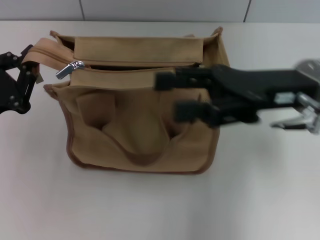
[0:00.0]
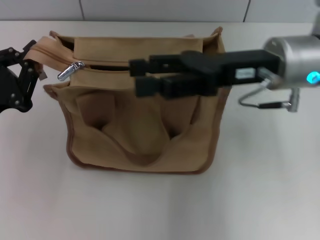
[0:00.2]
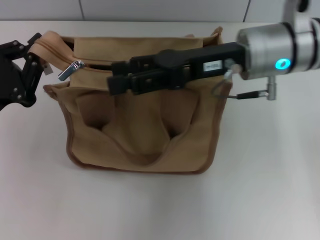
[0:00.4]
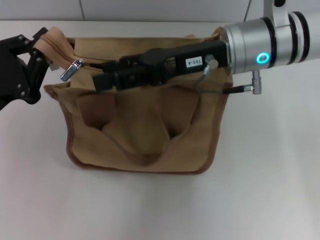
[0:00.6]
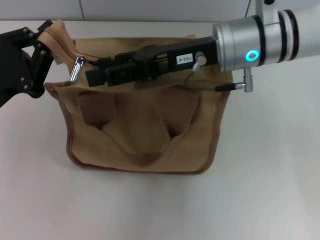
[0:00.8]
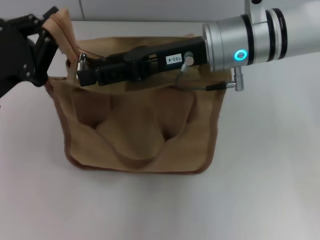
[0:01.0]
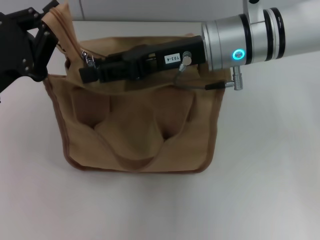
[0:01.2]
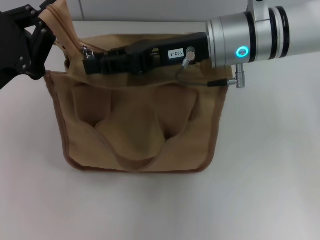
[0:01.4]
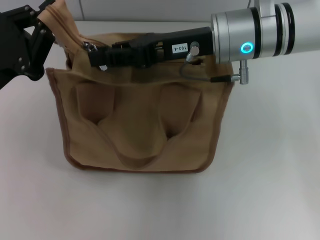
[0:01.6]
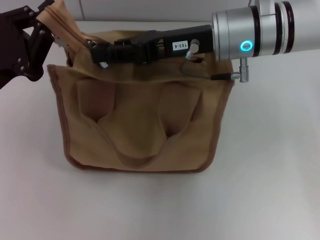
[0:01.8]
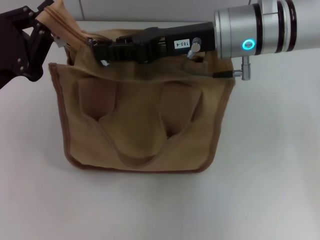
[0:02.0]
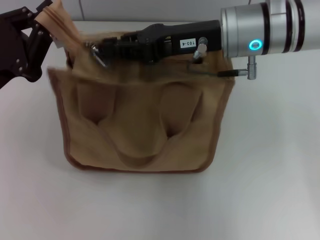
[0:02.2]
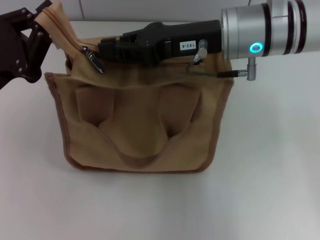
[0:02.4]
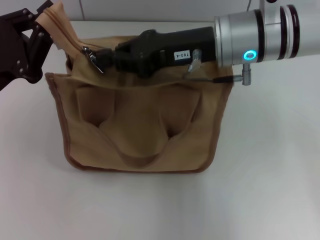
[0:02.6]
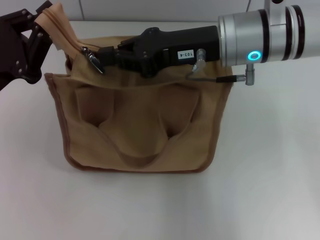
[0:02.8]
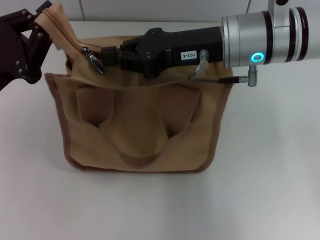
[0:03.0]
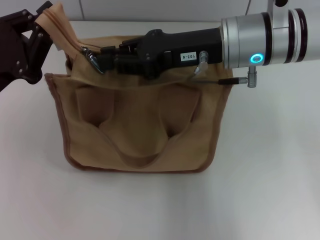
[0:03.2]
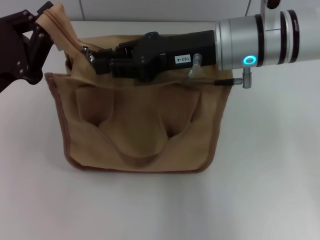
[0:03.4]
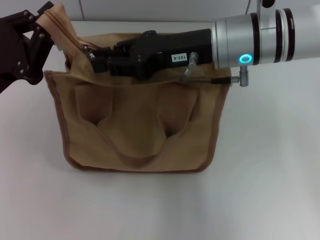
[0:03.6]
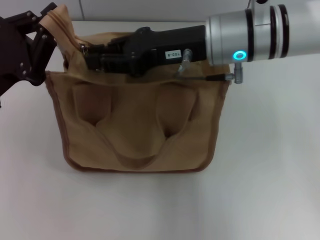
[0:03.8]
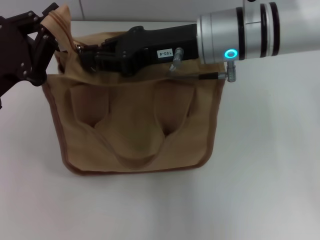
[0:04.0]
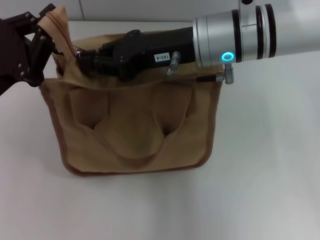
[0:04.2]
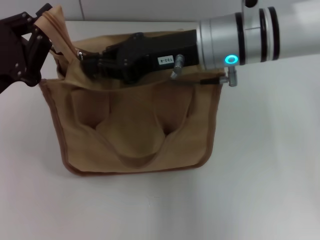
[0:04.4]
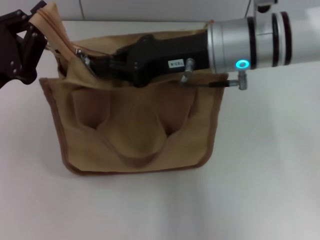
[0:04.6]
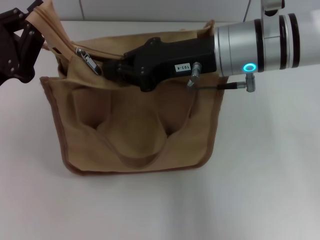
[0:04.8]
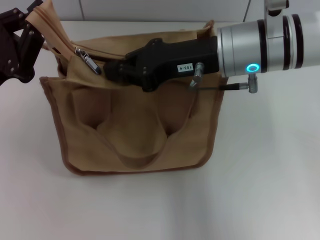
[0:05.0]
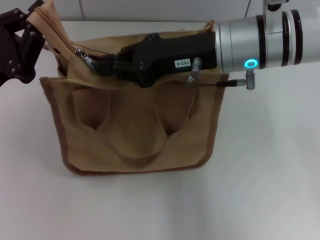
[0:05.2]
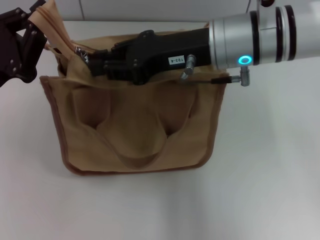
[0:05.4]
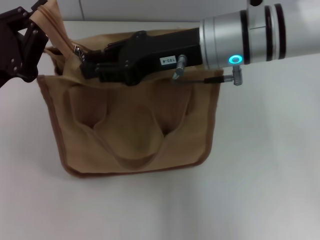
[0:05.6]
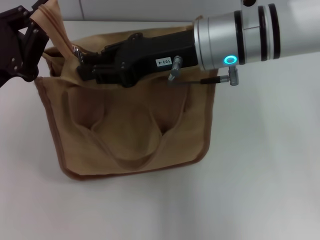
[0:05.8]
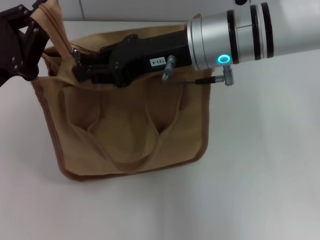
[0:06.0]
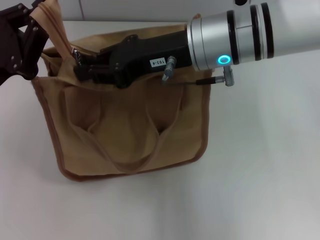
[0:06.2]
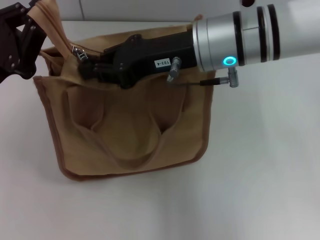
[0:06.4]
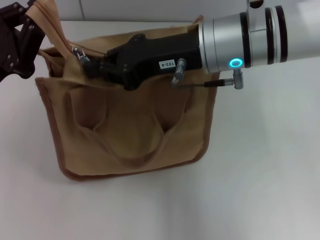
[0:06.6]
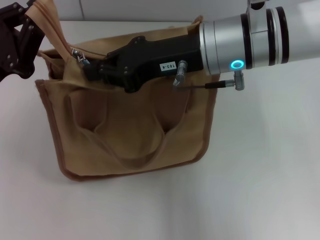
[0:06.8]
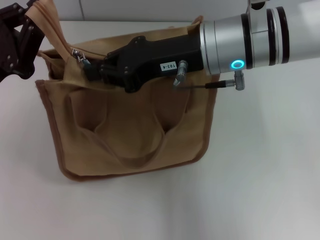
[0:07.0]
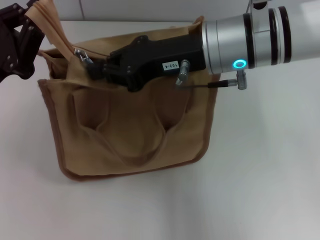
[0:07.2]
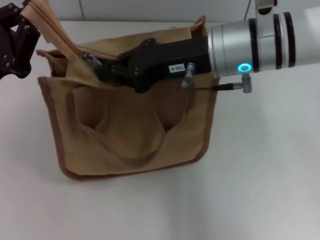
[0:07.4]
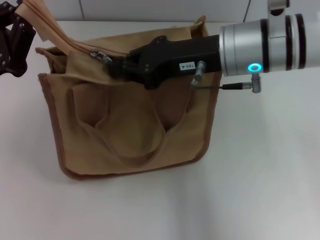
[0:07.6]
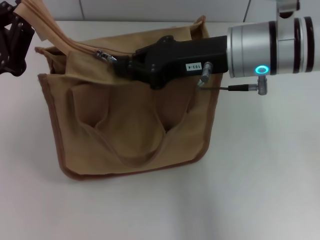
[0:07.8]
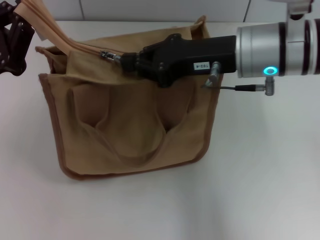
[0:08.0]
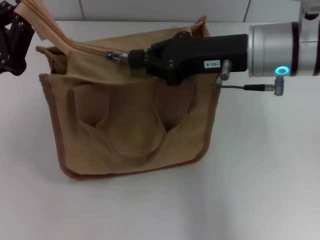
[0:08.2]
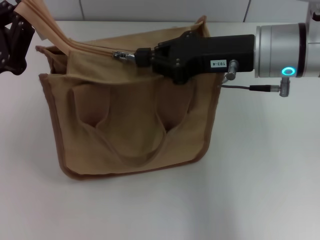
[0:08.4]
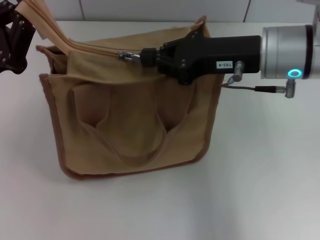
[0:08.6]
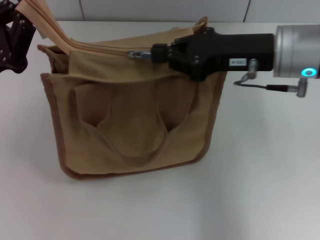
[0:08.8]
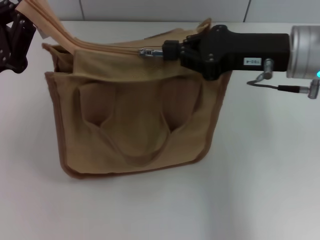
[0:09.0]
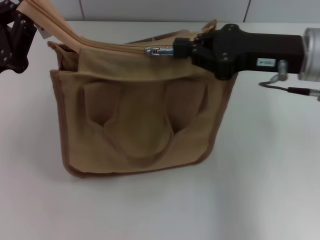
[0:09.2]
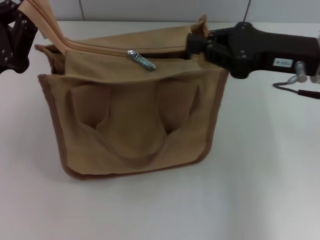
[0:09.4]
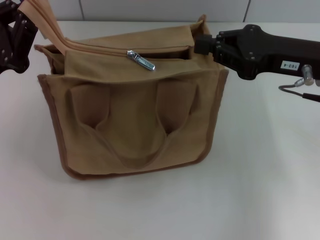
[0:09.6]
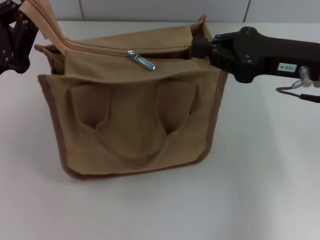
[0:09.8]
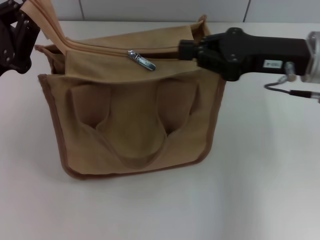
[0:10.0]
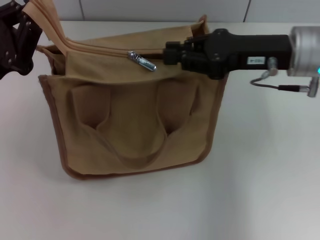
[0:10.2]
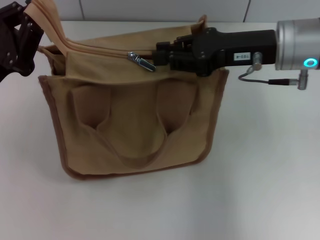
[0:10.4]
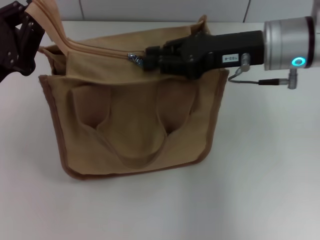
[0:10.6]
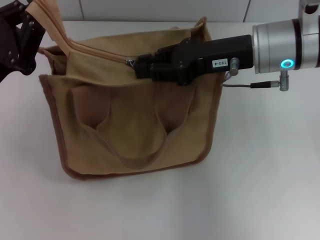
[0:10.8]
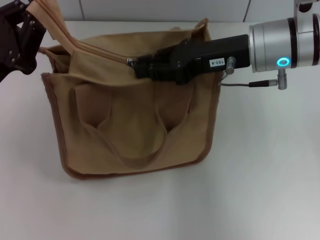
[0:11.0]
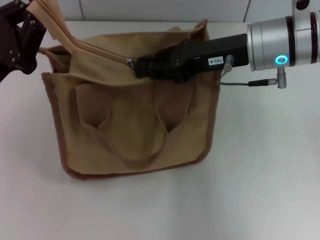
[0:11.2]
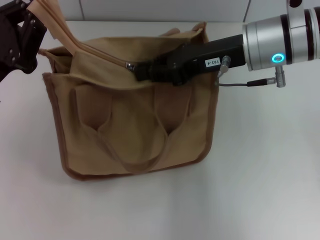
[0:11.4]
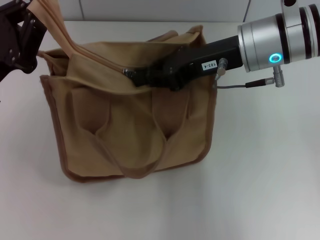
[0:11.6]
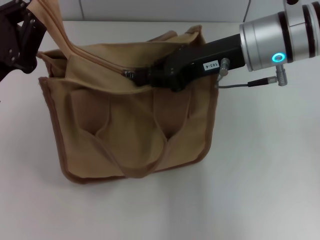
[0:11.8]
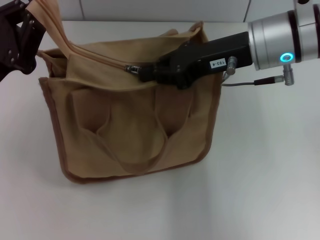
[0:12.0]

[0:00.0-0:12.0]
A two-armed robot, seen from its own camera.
0:00.0 to 0:01.6: The right gripper travels to the left and forward by about 10 cm, and closes its fingers; the left gripper shifts by roughly 5 cm.
0:01.6 to 0:03.0: The right gripper closes its fingers.
0:03.0 to 0:06.0: The grippers stay close to where they were, moving slightly.
0:06.0 to 0:07.6: The right gripper closes up.
0:07.6 to 0:09.0: The right gripper goes some 5 cm to the right.
0:09.0 to 0:12.0: There are only small adjustments of the grippers.

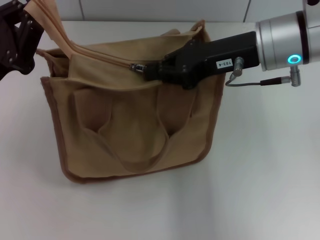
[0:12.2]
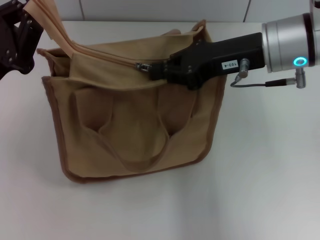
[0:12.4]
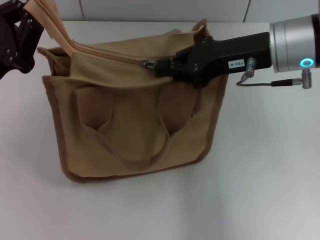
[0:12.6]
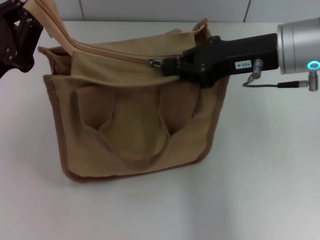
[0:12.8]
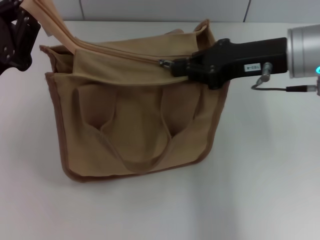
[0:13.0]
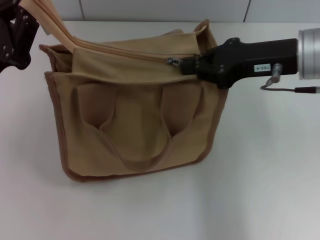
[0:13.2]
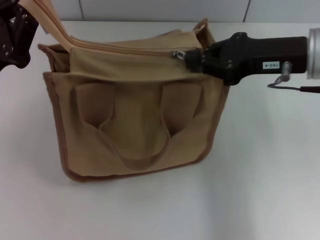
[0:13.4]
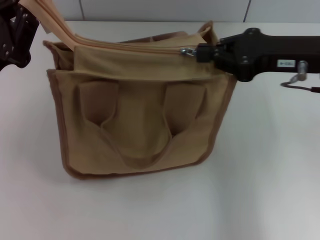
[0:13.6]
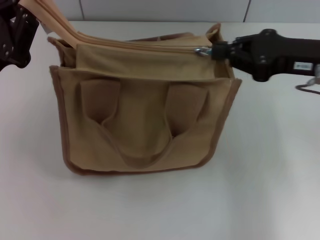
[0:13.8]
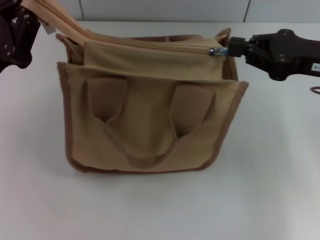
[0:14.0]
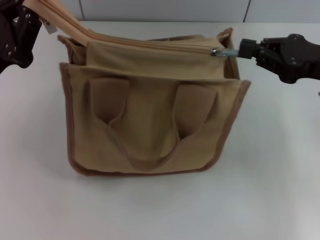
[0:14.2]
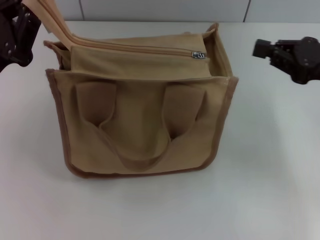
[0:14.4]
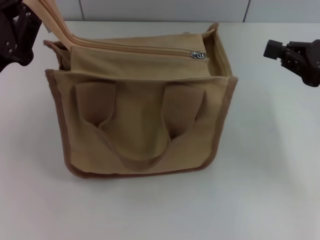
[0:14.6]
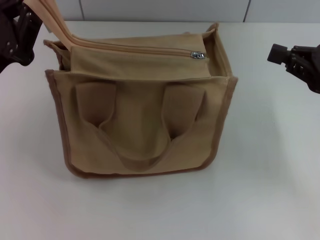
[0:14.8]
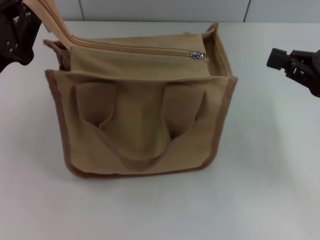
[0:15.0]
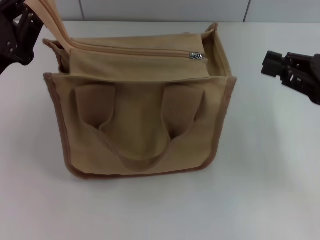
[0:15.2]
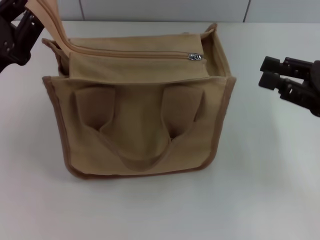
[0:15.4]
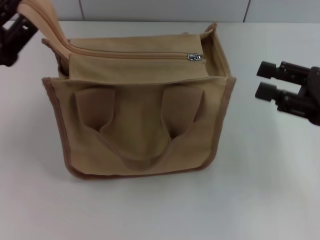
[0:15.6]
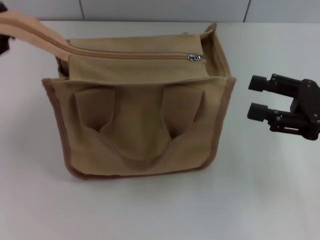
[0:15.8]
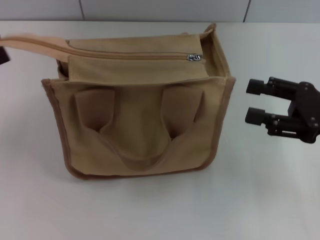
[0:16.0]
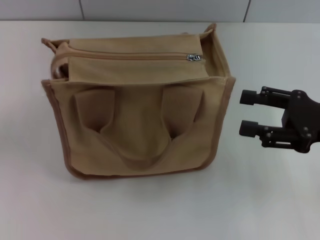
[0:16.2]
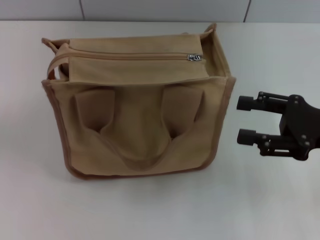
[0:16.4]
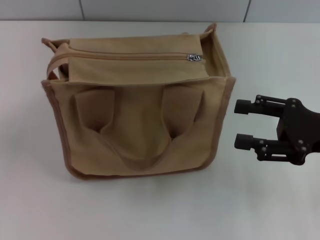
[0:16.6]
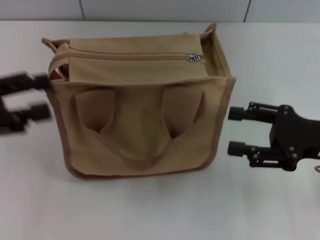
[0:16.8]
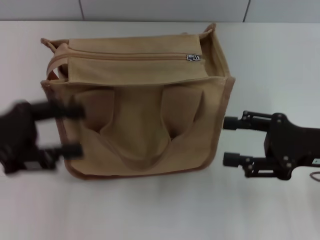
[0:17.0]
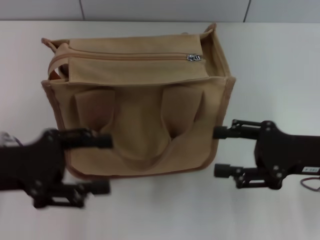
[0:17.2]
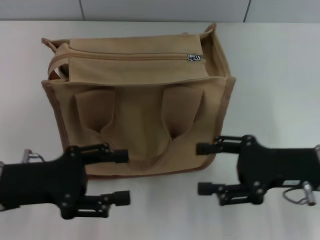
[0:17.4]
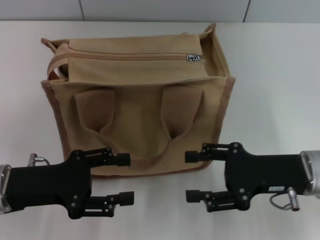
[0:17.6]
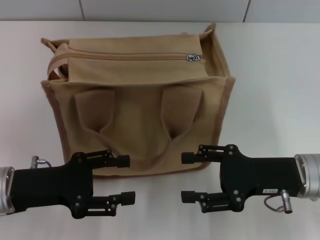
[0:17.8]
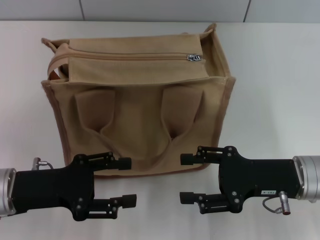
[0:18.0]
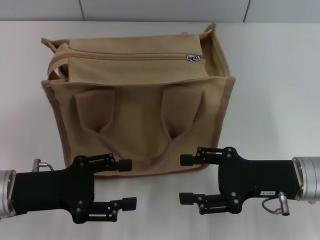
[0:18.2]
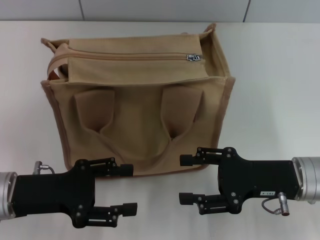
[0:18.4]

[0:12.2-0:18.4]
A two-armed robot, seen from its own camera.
Step, 0:12.2 to 0:14.2: Pull up the zipper with your right hand.
Step, 0:14.4 to 0:16.0: Grab the zipper with your left hand.
0:12.2 to 0:13.8: The right gripper moves to the right, roughly 10 cm.
0:13.8 to 0:15.4: The right gripper heads to the right and downward, covering roughly 10 cm.
0:15.4 to 0:16.8: The left gripper moves to the left, roughly 5 cm, and opens its fingers. The right gripper opens up.
0:16.8 to 0:18.4: The right gripper is displaced to the left and downward by approximately 10 cm. The left gripper goes roughly 15 cm downward and to the right.
